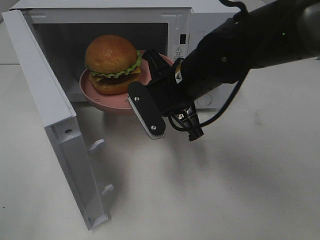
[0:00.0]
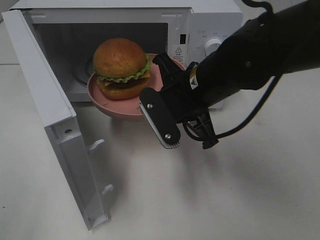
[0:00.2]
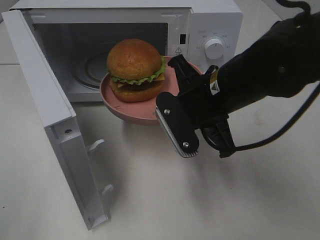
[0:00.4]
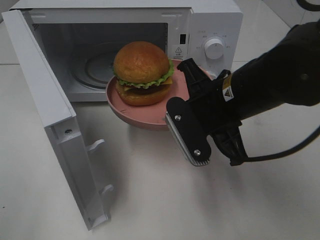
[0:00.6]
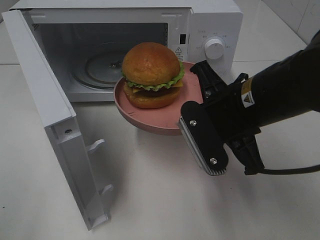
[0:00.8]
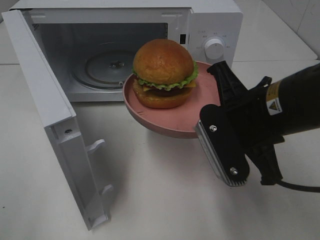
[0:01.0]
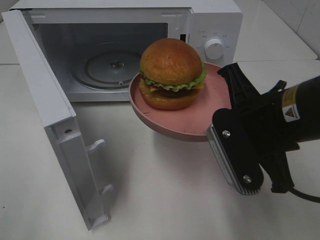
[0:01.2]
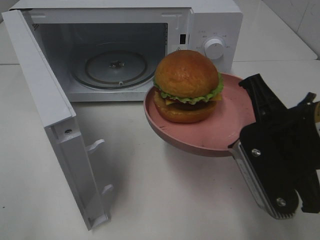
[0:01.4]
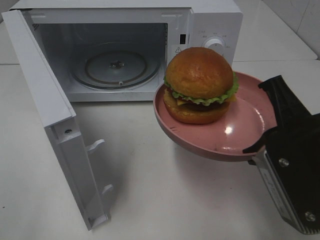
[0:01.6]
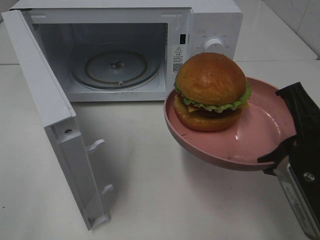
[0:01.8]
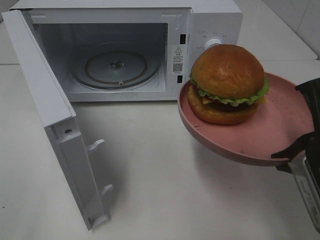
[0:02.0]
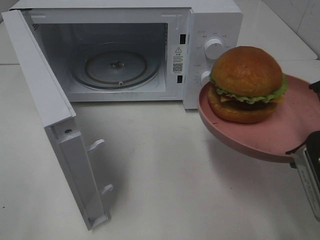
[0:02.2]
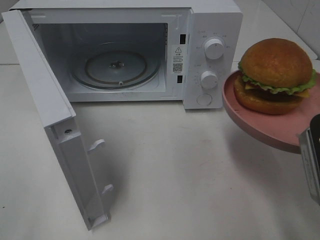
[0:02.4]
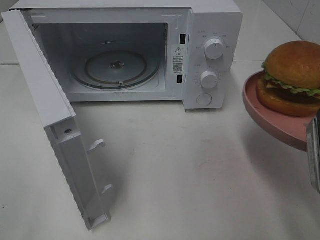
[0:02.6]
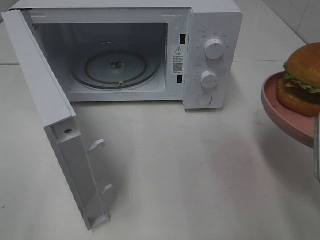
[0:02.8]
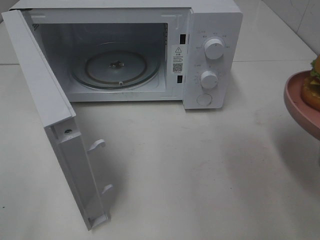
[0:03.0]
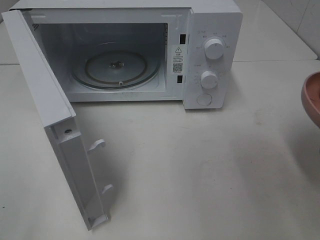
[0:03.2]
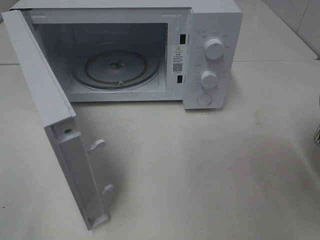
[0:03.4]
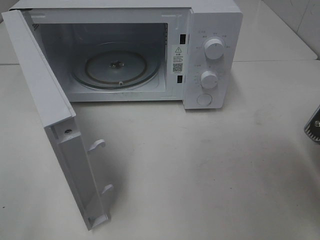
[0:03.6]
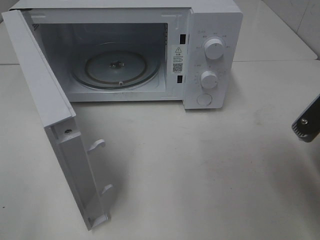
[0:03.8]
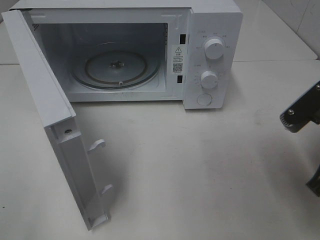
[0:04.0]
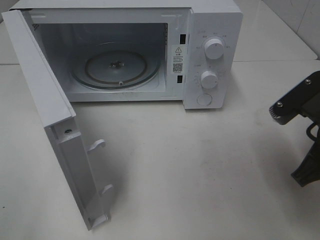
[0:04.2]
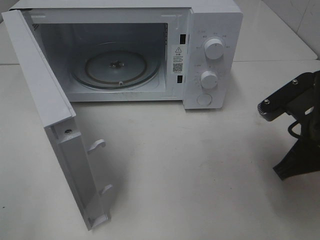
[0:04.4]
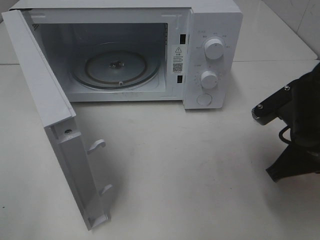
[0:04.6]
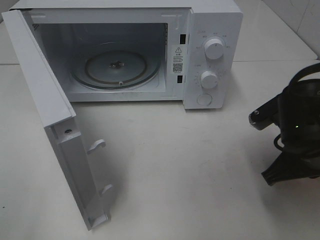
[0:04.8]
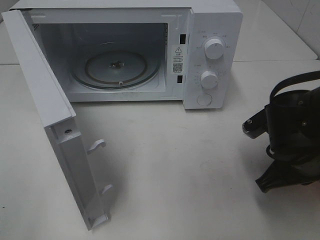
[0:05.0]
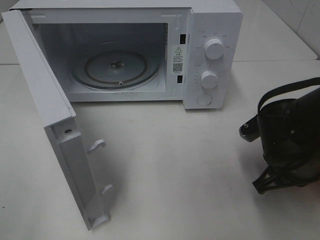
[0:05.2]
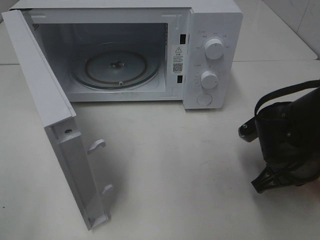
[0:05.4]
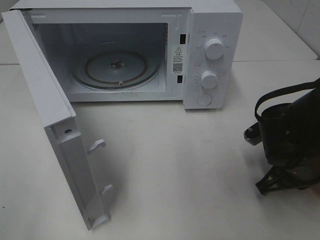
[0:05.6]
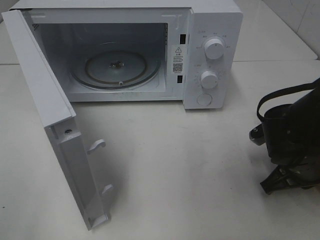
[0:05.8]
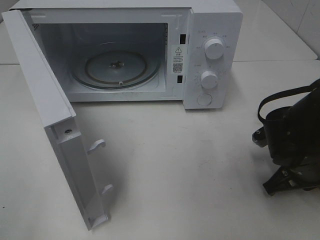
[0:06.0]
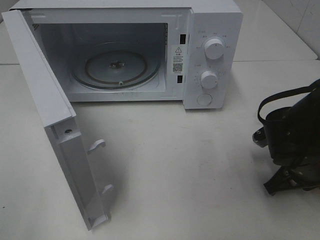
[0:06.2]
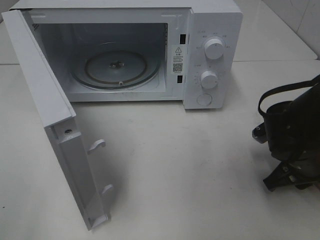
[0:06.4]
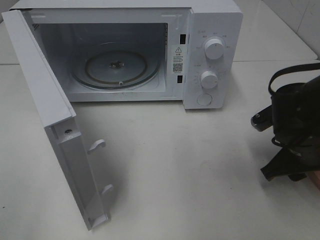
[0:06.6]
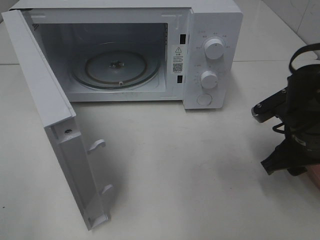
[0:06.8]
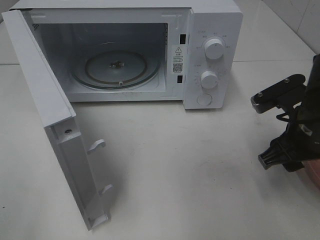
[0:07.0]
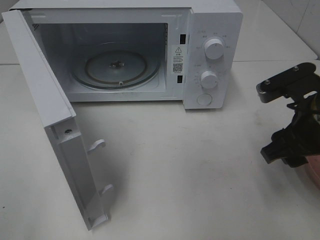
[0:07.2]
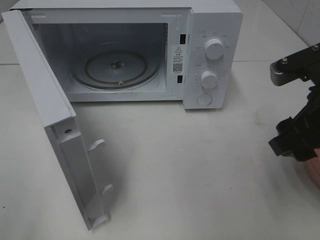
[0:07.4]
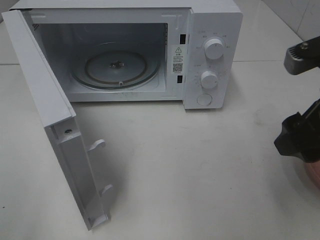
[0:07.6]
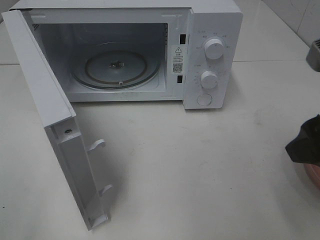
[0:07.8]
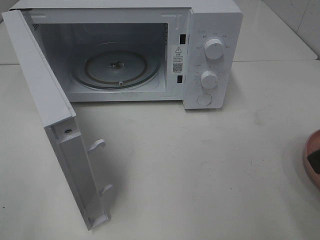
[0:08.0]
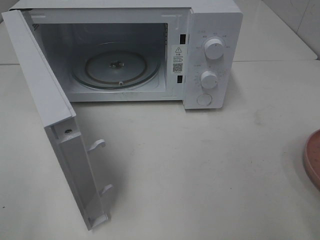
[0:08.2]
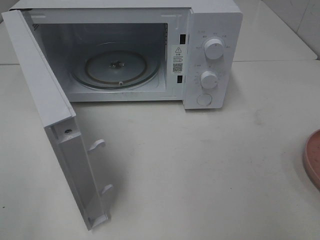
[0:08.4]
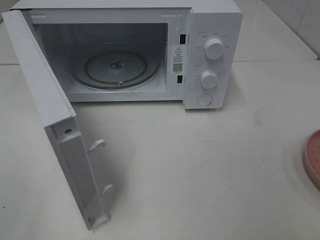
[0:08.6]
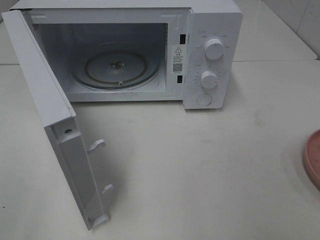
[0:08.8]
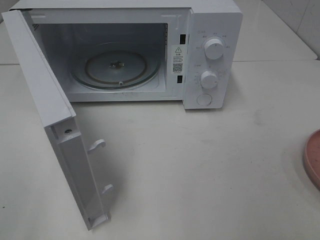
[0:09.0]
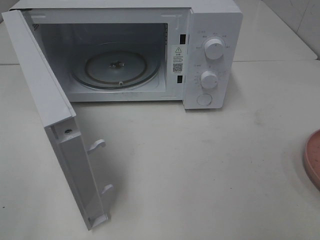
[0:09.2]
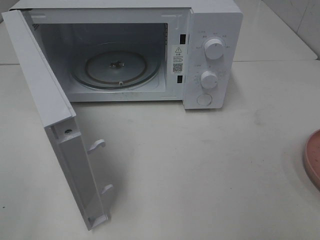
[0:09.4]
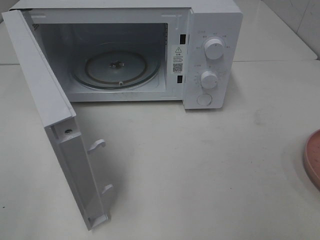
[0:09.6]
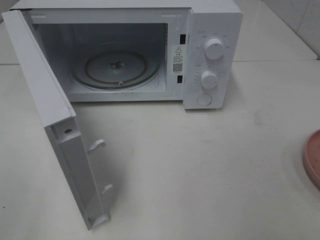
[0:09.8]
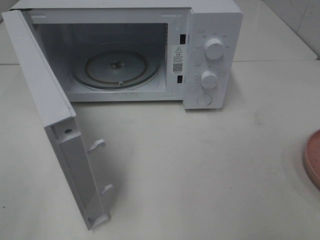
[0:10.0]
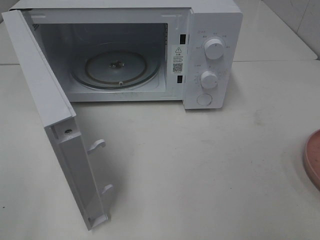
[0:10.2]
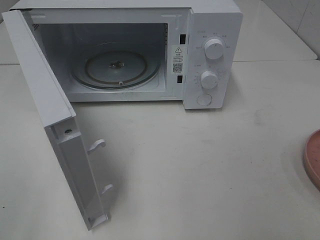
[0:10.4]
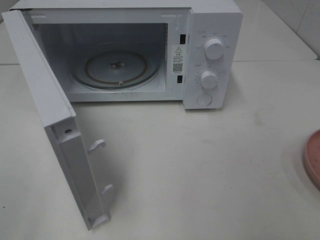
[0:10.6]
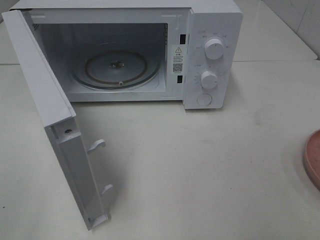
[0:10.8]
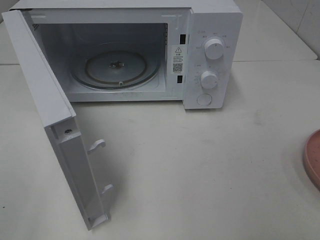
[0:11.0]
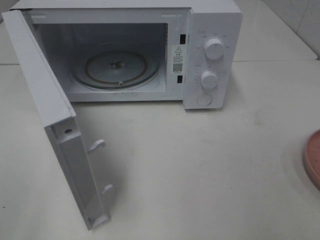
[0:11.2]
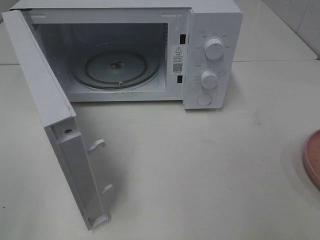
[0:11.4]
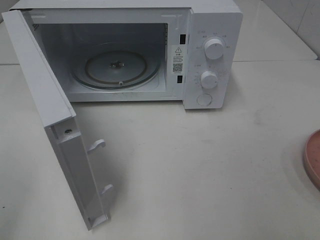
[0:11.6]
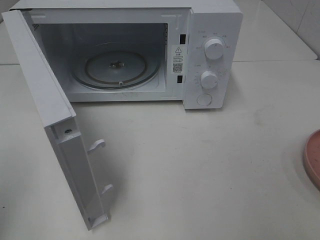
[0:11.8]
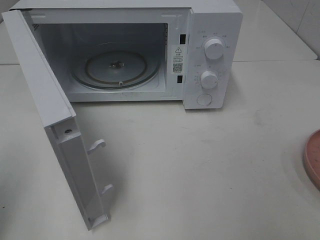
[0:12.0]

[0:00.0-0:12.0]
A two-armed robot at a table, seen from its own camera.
Task of the whole recording: Heat the burger.
Step, 0:00.0 to 0:07.0: Right hand: place the plate on the table.
0:00.0 to 0:01.6: The right gripper travels backward and to the right by about 20 cm.
0:01.6 to 0:03.0: The right gripper shifts some 5 cm to the right.
0:03.0 to 0:04.4: The right gripper shifts some 10 cm forward and downward.
0:04.4 to 0:06.0: The right gripper is displaced downward by about 10 cm.
0:06.0 to 0:07.6: The right gripper is displaced upward by approximately 20 cm, and opens up.
0:07.6 to 0:09.0: The right gripper heads backward and to the right, covering roughly 20 cm.

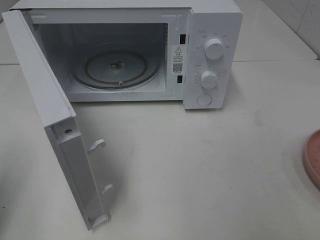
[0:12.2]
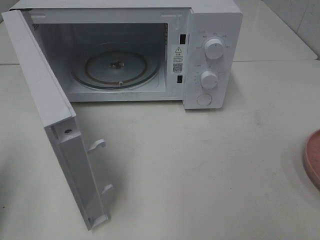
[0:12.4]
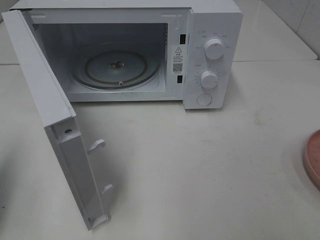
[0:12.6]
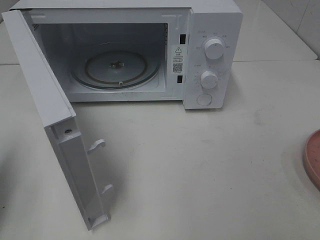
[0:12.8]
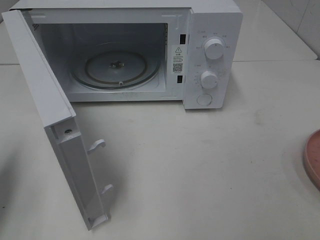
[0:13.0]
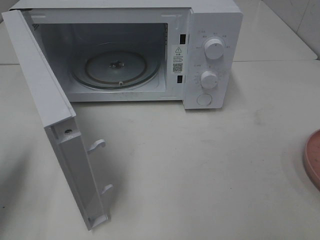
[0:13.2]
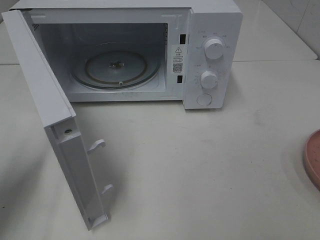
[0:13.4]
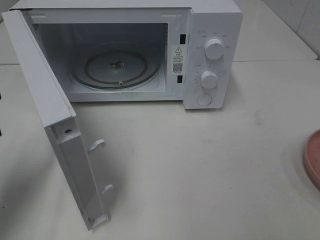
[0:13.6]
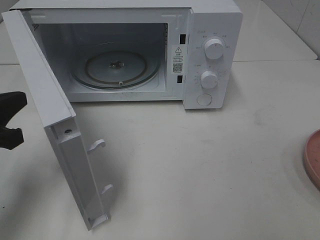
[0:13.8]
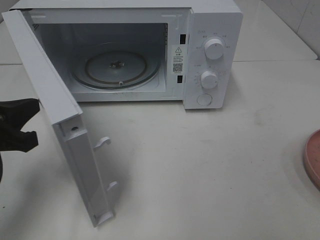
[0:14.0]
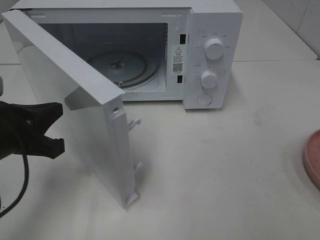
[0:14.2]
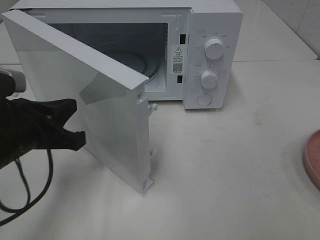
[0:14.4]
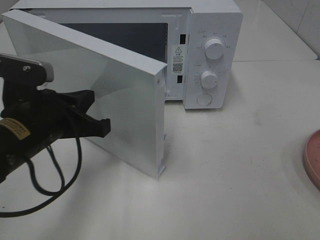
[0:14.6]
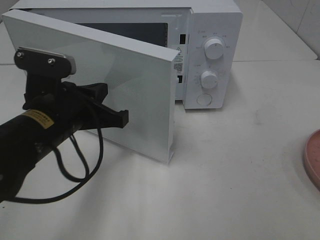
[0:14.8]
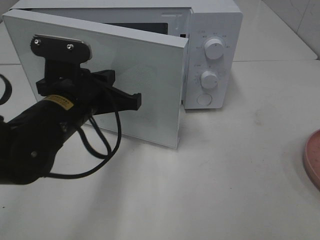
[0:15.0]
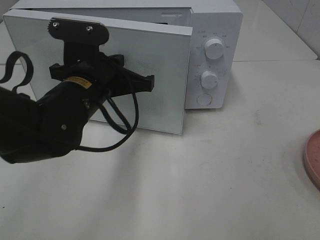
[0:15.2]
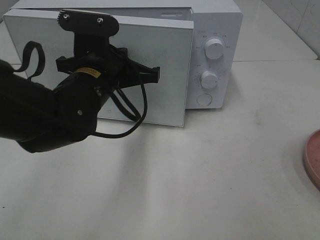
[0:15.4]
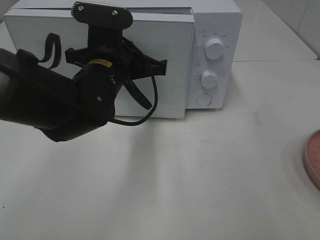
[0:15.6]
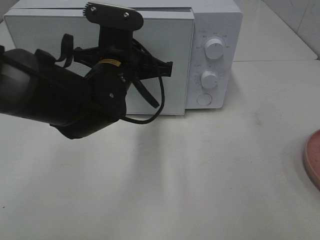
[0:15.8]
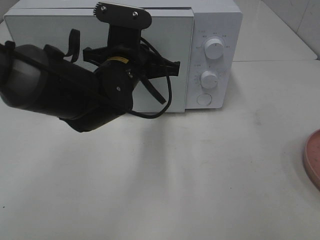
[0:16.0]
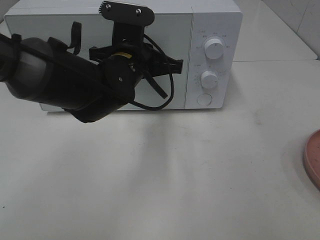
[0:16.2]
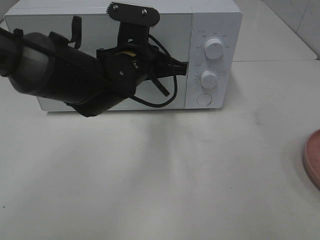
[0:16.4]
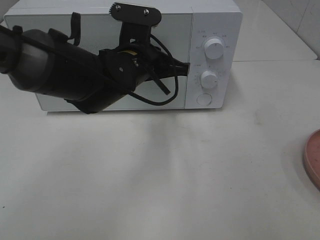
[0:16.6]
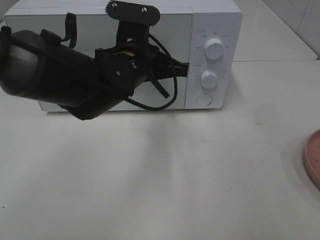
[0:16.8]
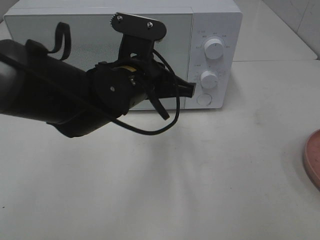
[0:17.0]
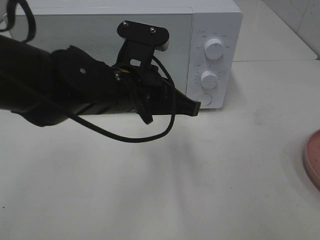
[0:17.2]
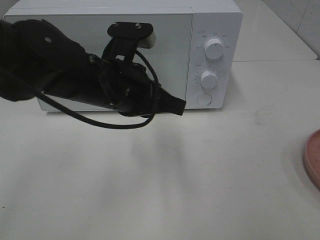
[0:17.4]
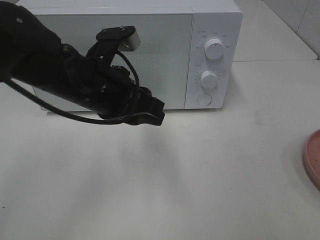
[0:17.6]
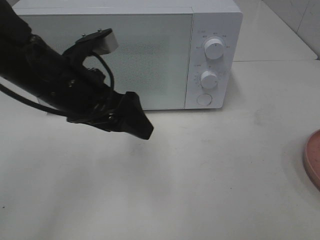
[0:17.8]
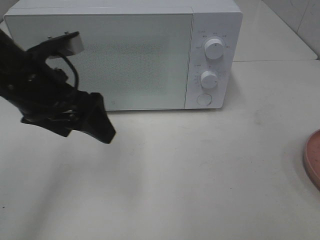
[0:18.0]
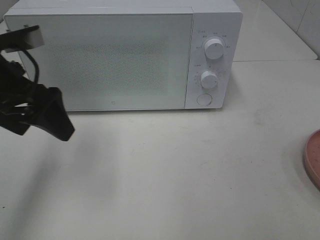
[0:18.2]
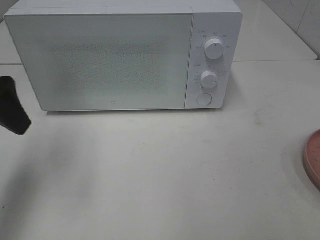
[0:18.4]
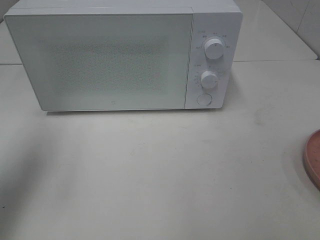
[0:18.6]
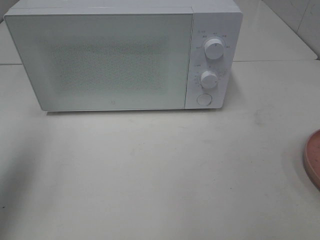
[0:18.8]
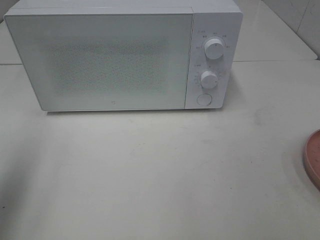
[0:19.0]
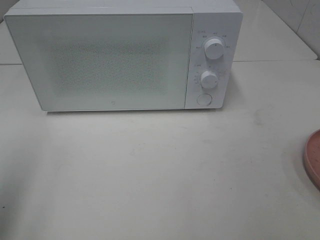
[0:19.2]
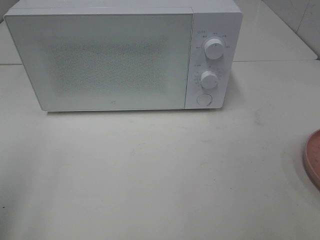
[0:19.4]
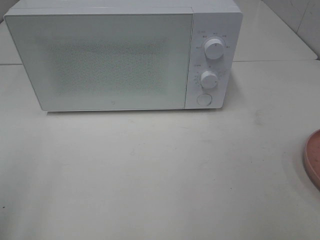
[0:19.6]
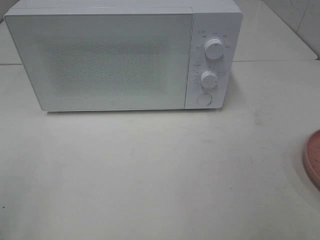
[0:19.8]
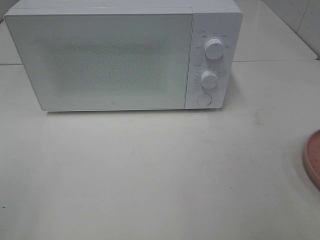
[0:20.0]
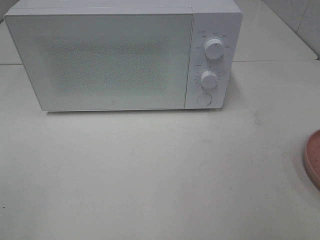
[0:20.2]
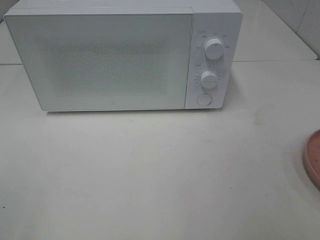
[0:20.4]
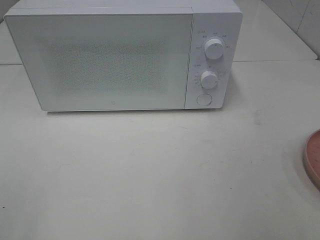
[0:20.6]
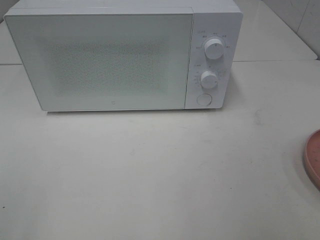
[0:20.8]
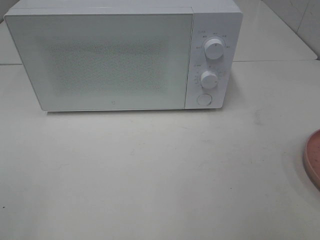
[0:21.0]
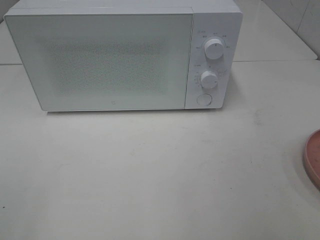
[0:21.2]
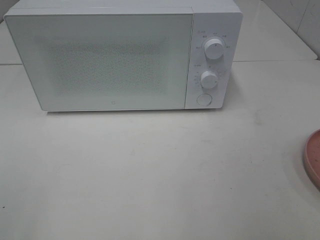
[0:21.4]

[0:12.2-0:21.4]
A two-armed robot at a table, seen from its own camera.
Task of the whole recording: Heat the burger.
Step, 0:12.2 to 0:17.2: Left hand: close the microwave door.
0:12.2 to 0:13.8: The left gripper travels forward, downward and to the right by approximately 10 cm.
0:13.8 to 0:15.2: The left gripper heads to the right and forward, covering roughly 20 cm.
0:15.2 to 0:16.8: The left gripper moves to the right, some 5 cm.
0:16.8 to 0:18.4: The left gripper moves to the left and upward, some 25 cm, and opens up.
0:18.4 to 0:19.8: The left gripper heads backward, covering approximately 20 cm.

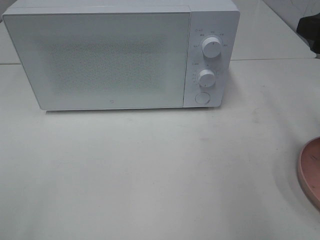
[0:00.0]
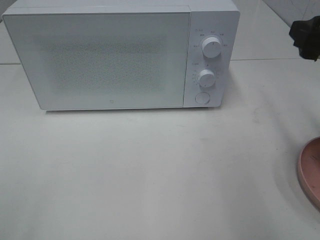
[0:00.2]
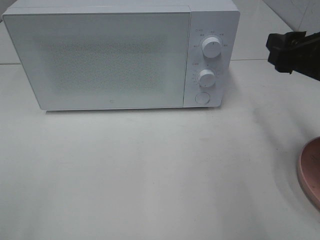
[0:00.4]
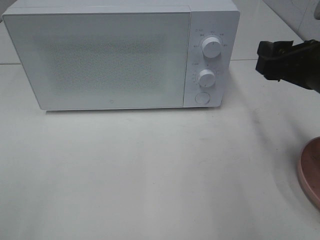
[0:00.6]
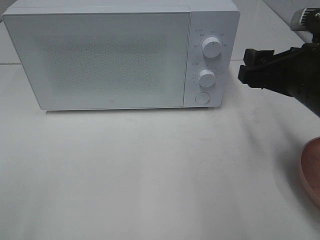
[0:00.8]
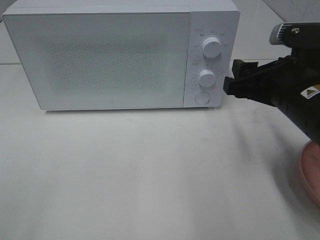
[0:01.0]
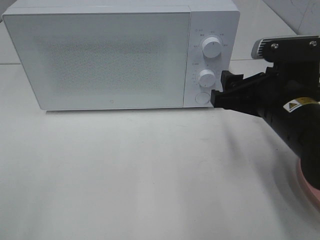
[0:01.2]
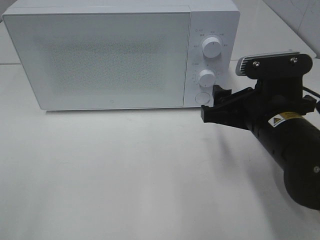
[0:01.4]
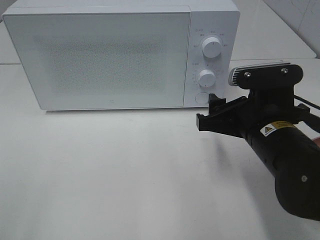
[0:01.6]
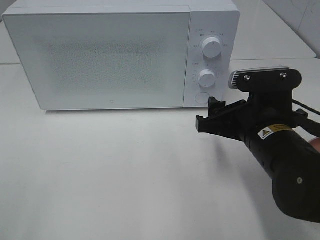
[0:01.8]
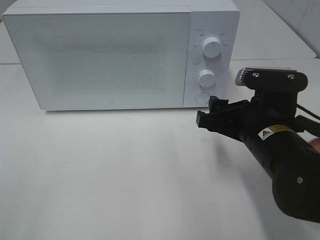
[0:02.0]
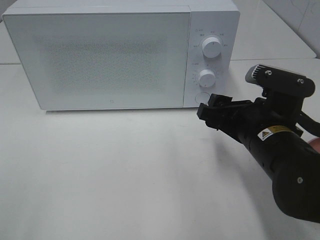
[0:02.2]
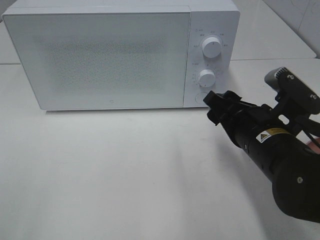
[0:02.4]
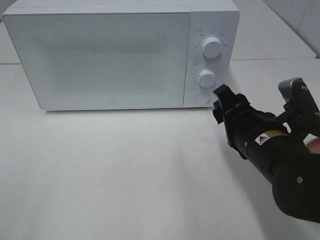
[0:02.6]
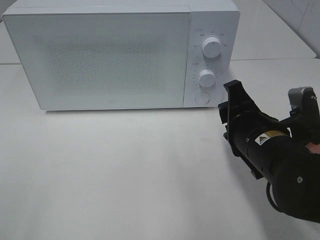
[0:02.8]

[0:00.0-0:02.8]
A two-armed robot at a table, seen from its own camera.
Task of the whole recording: Heat the burger.
0:00.0 to 0:01.4: The right gripper travels downward and to the left by roughly 15 cm.
